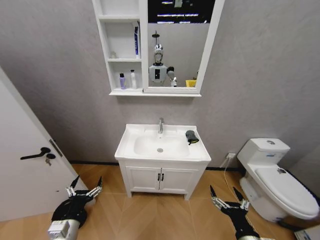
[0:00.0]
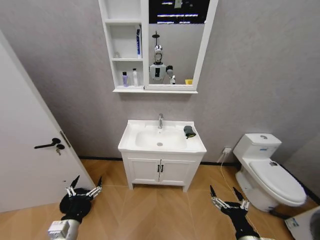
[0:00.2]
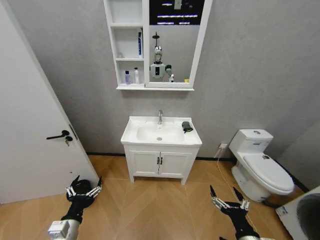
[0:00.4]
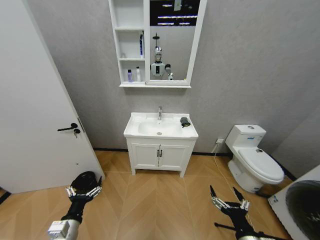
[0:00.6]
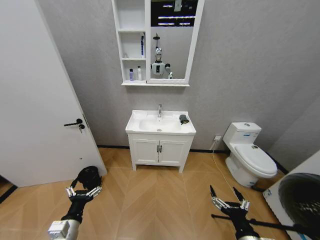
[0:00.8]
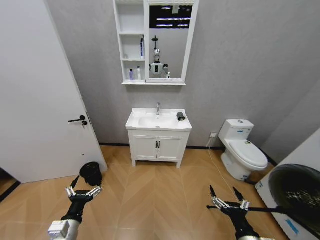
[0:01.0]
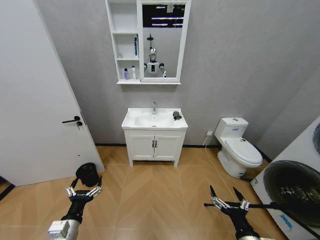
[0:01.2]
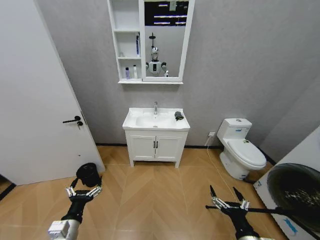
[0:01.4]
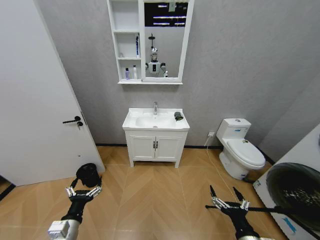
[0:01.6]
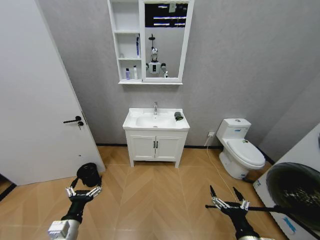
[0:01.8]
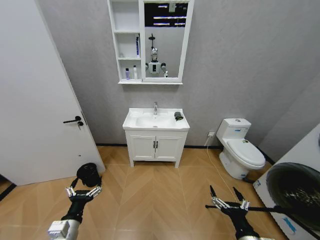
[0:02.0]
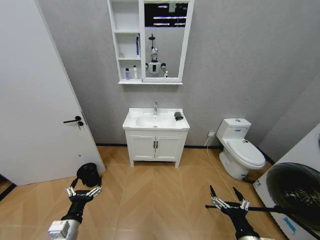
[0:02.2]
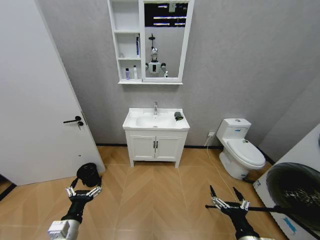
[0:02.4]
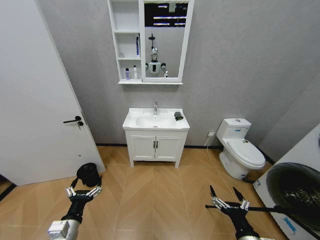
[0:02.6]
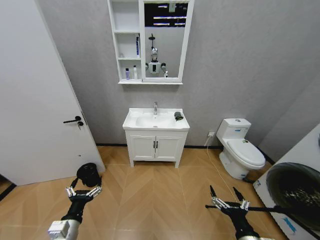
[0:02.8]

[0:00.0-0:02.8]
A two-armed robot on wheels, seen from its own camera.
Task of the whole recording: Move facial cleanser and shampoo from washbasin to cabinet, then wipe washbasin with towel.
0:01.4 to 0:02.8: Both grippers stay put.

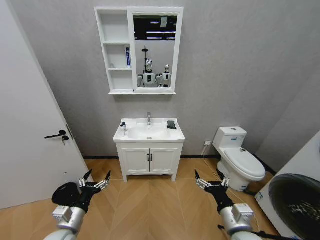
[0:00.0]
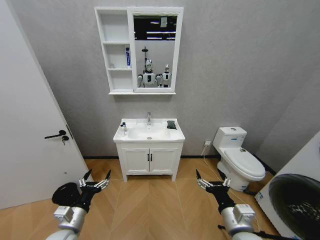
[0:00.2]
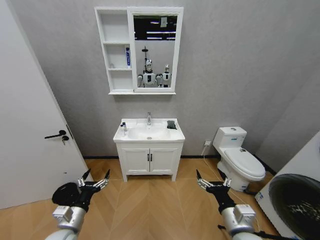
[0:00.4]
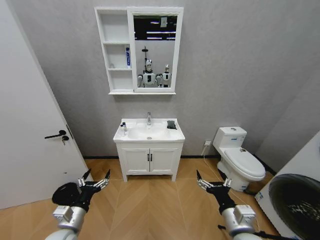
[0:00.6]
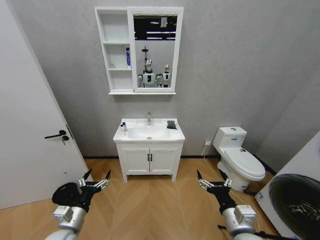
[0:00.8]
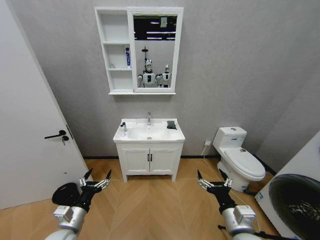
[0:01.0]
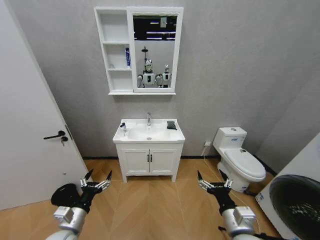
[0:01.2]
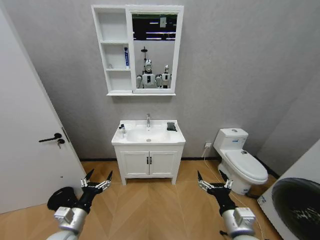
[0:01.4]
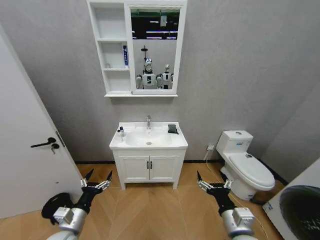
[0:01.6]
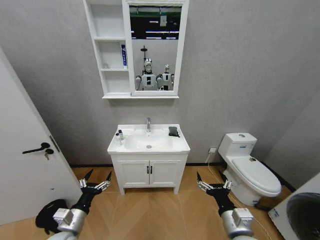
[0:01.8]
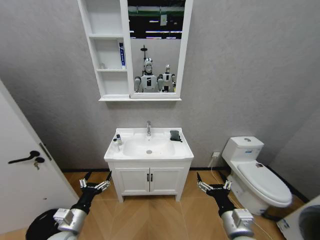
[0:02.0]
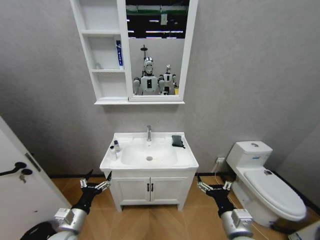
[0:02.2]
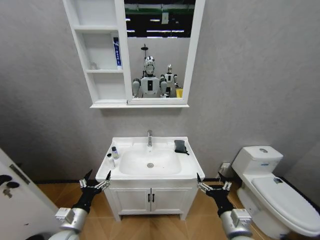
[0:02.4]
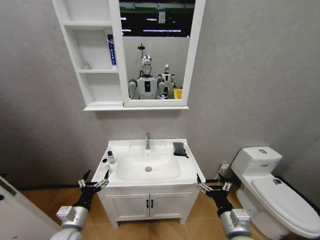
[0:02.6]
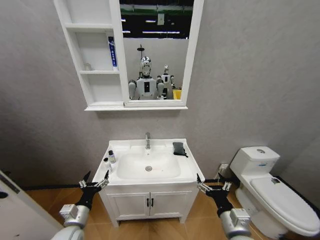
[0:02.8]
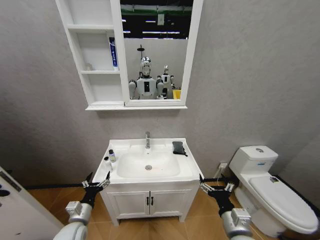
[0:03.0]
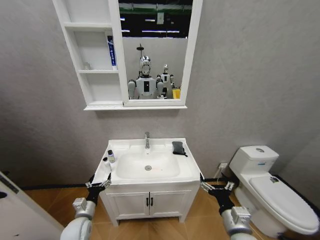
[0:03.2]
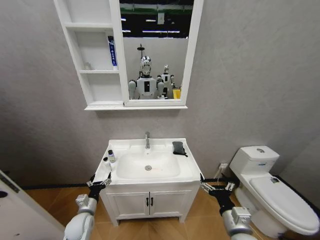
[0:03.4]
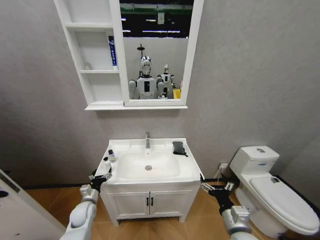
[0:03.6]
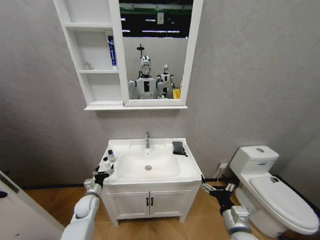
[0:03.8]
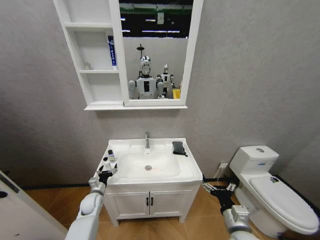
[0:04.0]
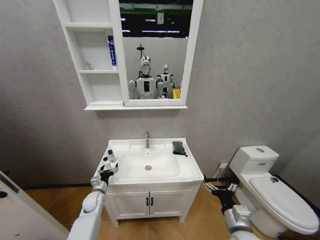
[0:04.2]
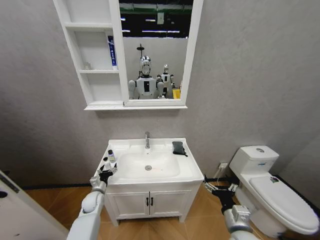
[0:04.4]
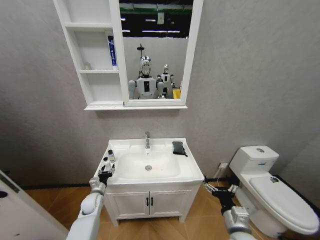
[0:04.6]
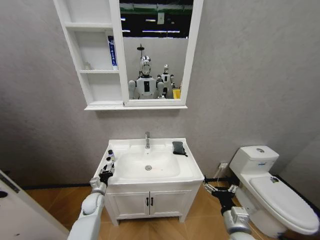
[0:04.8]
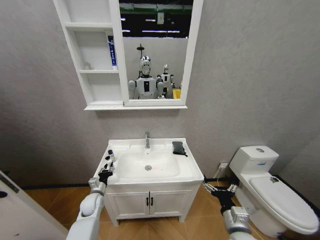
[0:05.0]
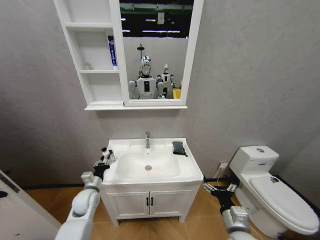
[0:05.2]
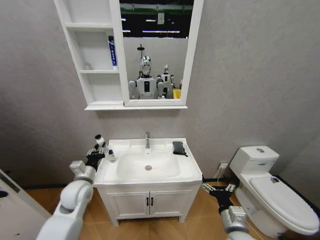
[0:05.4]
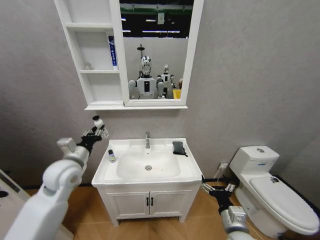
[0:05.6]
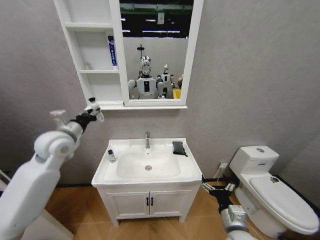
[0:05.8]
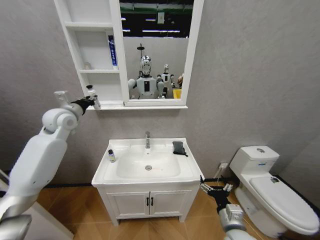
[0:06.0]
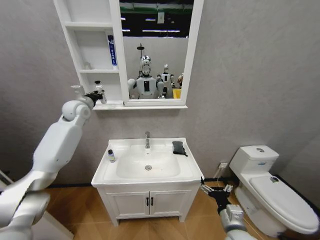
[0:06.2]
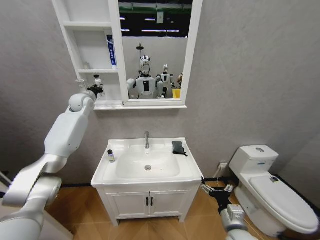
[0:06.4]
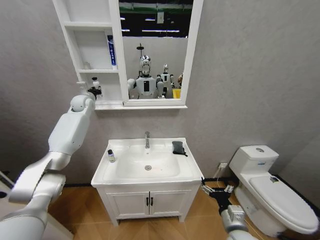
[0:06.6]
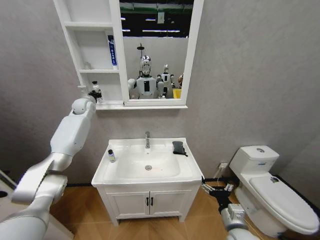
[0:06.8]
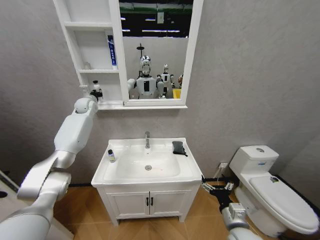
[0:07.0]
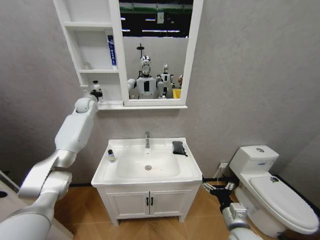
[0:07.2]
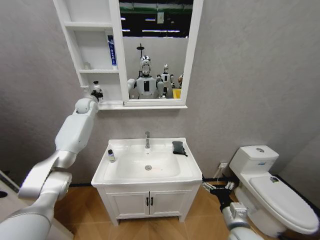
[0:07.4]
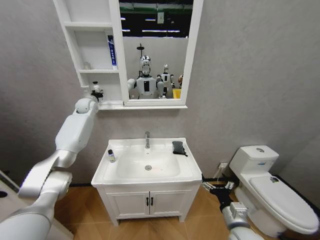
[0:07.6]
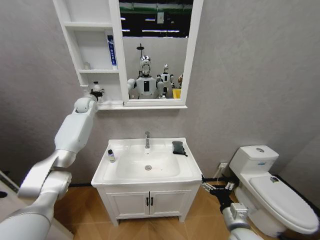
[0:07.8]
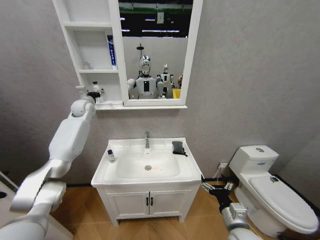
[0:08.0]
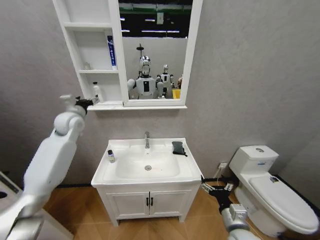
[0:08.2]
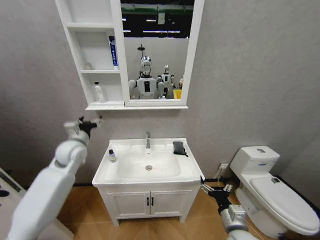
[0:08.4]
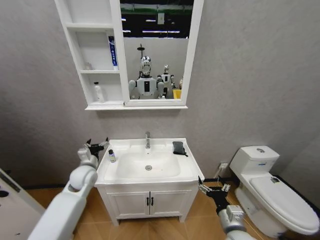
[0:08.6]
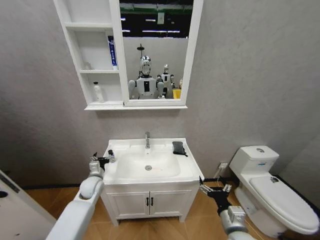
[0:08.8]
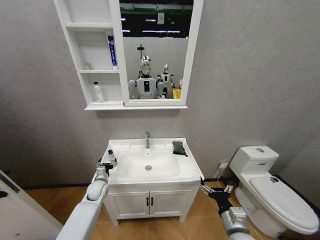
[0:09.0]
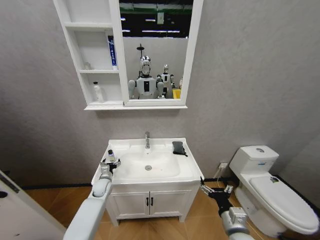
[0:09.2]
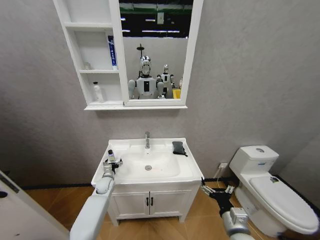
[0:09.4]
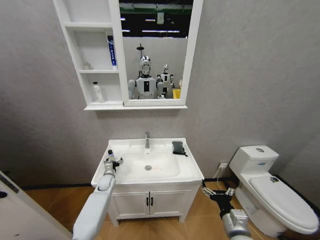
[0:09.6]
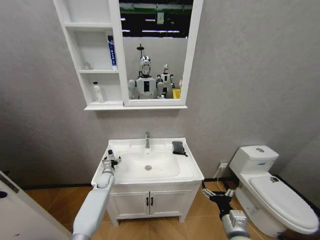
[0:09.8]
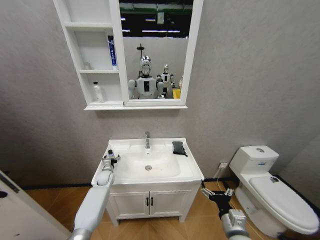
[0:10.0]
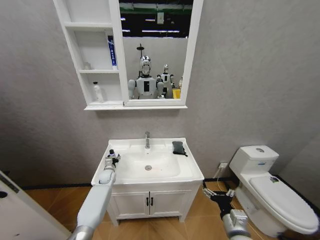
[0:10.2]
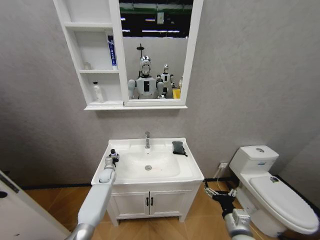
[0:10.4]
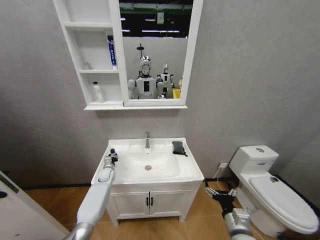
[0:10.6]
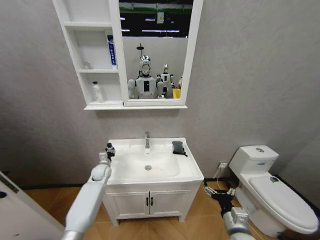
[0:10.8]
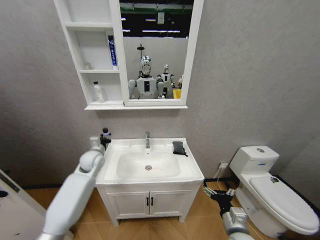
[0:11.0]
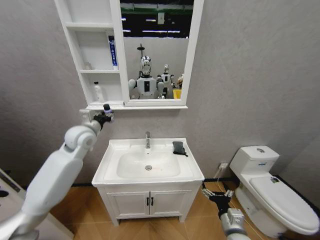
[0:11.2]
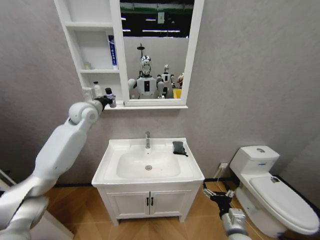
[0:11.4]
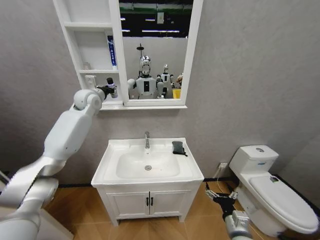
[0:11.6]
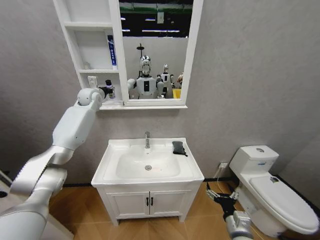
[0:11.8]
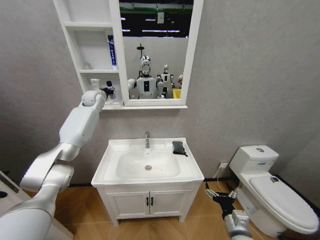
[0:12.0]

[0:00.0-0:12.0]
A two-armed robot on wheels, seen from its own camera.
Task of the whole recording: Move facial cleanser and shampoo from washbasin to cabinet, then wipe washbasin with towel.
0:01.6 to 0:03.0: The left gripper moves downward, approximately 5 cm.
0:03.0 to 0:04.4: The left gripper is displaced forward and downward by approximately 15 cm.
0:04.4 to 0:06.0: The left gripper shifts roughly 40 cm upward, and closes its fingers.
0:06.0 to 0:07.6: The left gripper shifts approximately 20 cm forward.
0:07.6 to 0:09.0: The left gripper heads downward and backward, covering some 40 cm, and opens.
0:09.0 to 0:10.4: The left gripper is displaced forward by roughly 10 cm, and closes up.
0:10.4 to 0:12.0: The left gripper shifts roughly 40 cm upward.

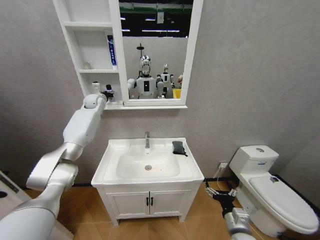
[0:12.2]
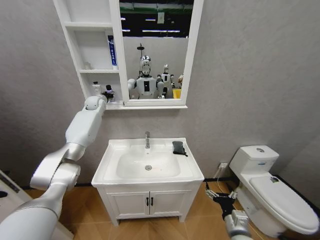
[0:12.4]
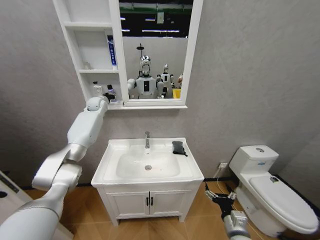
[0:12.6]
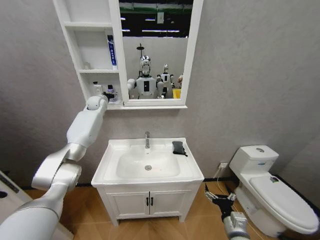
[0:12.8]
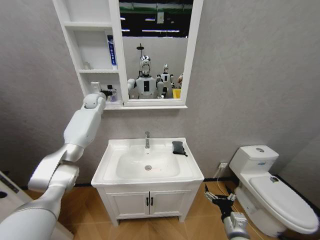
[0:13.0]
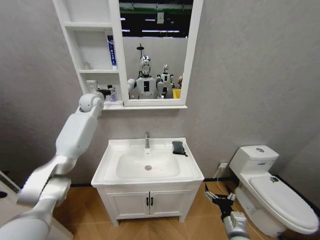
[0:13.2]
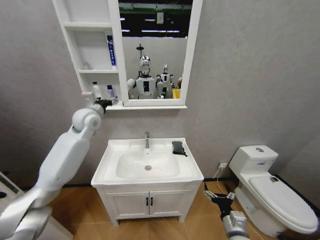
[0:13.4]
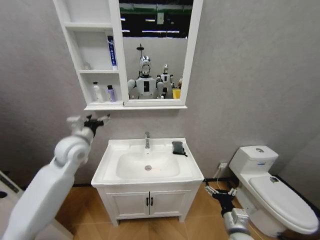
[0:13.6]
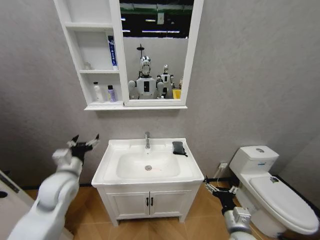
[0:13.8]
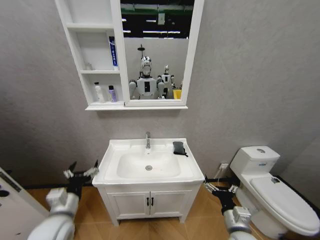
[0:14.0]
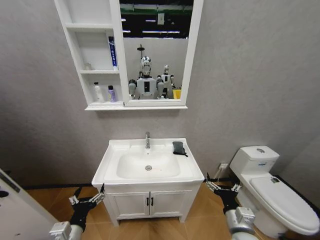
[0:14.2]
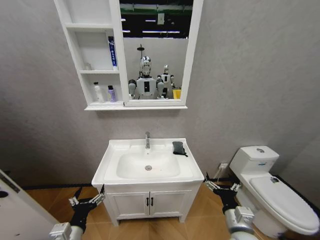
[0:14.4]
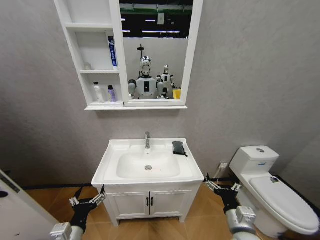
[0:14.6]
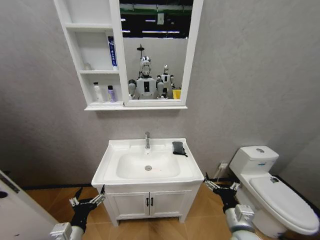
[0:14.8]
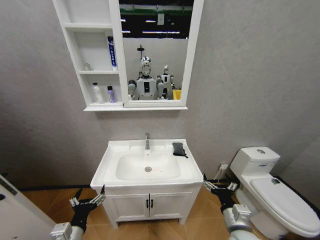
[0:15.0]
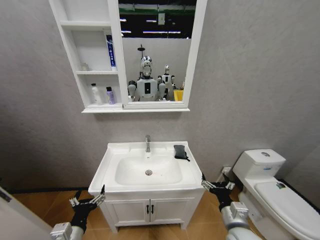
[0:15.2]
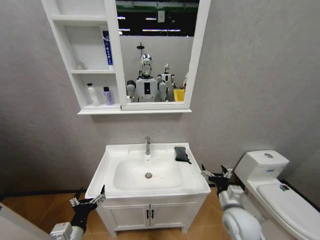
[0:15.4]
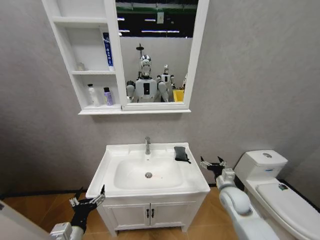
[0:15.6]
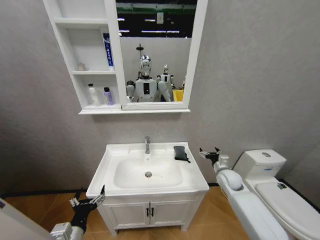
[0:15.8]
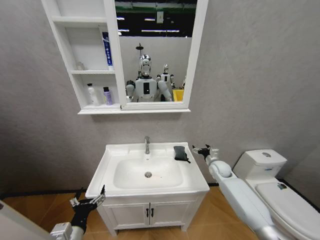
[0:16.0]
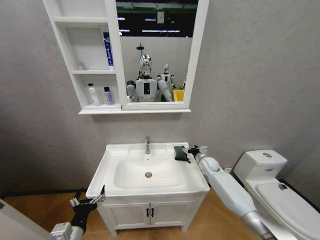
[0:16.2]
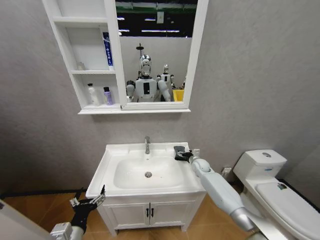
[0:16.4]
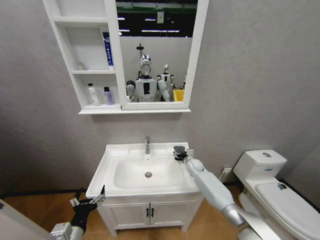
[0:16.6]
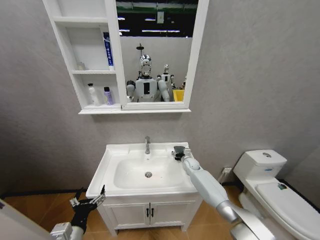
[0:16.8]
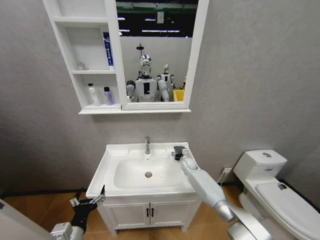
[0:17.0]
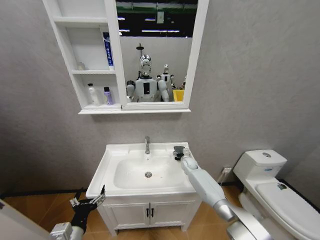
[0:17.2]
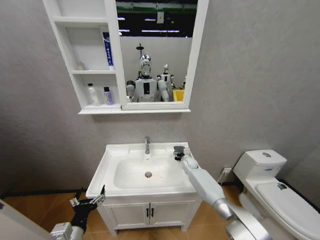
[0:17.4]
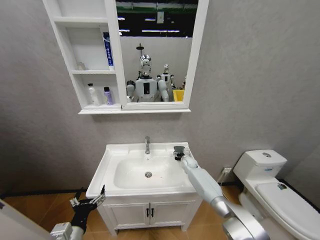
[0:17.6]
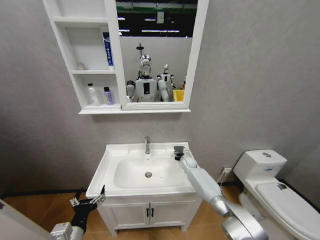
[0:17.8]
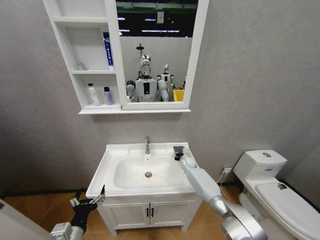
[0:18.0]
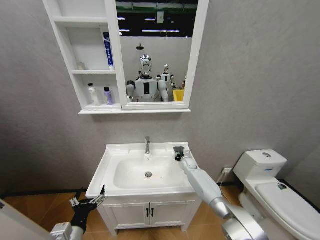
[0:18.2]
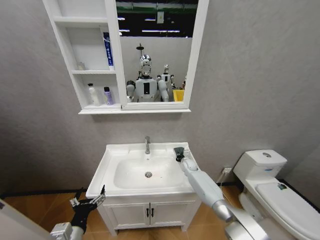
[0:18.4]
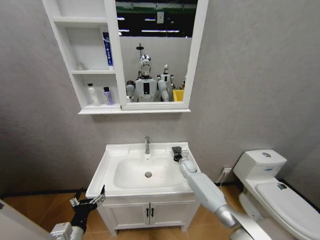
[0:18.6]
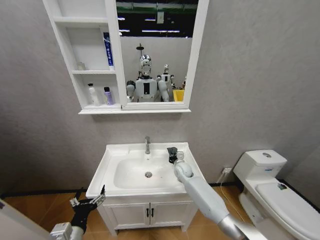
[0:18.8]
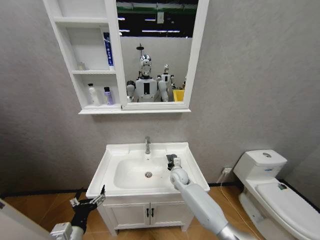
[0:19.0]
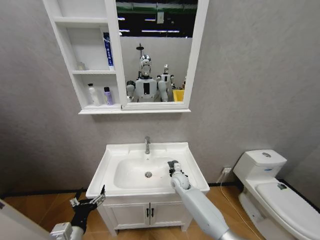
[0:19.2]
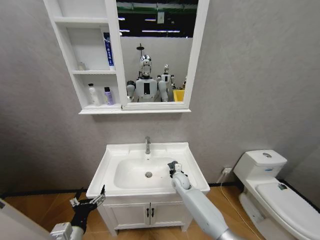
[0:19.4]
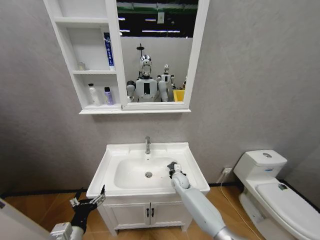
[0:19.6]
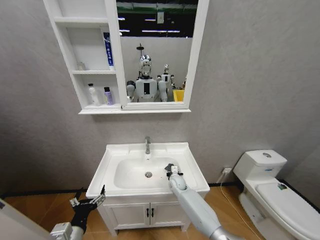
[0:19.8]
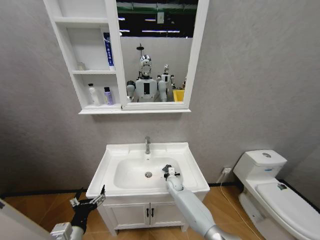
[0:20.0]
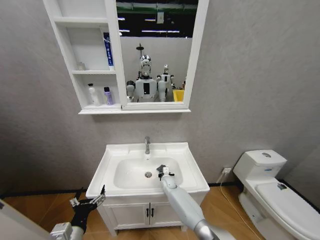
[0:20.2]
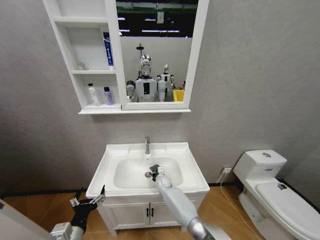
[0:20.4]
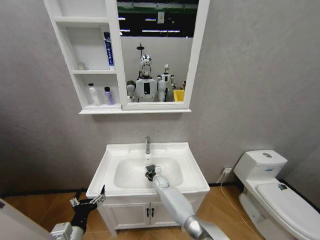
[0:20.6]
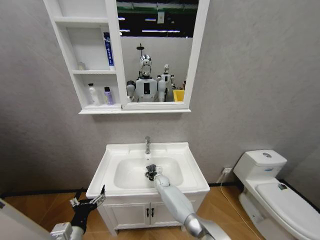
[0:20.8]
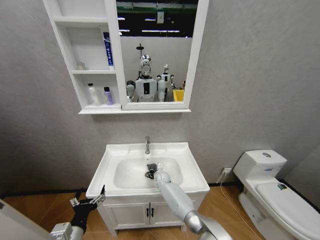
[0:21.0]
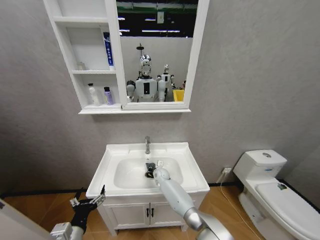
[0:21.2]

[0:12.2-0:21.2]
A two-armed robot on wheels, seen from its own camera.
Task of the whole recording: Move facial cleanser and shampoo from washbasin to cabinet, then wipe washbasin with towel.
0:12.2 to 0:13.8: The left gripper heads backward and downward, covering roughly 40 cm, and opens its fingers.
0:13.8 to 0:15.2: The left gripper moves backward and downward, approximately 20 cm.
0:15.2 to 0:16.6: The right gripper heads forward, covering approximately 35 cm.
0:16.6 to 0:18.2: The right gripper closes.
0:18.2 to 0:19.8: The right gripper moves backward and to the left, approximately 15 cm, and closes its fingers.
0:19.8 to 0:21.2: The right gripper shifts approximately 10 cm to the left and forward.
